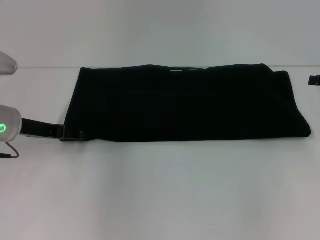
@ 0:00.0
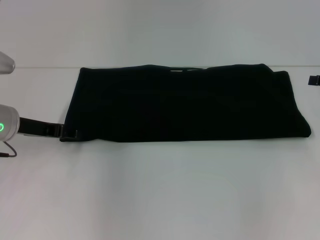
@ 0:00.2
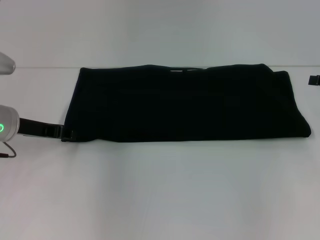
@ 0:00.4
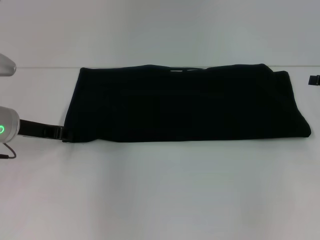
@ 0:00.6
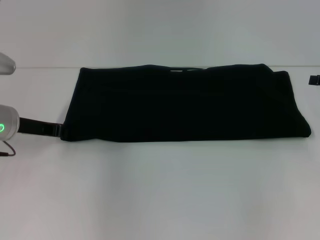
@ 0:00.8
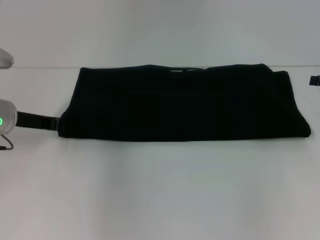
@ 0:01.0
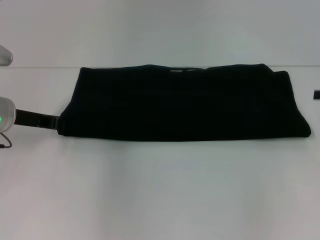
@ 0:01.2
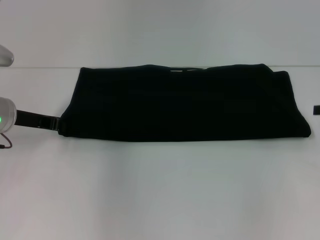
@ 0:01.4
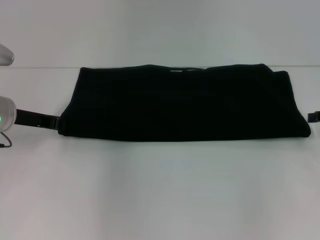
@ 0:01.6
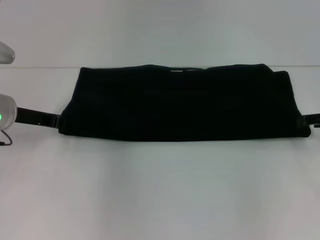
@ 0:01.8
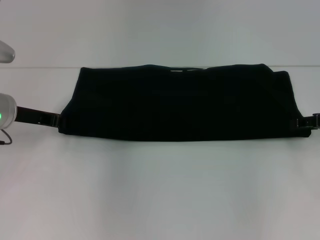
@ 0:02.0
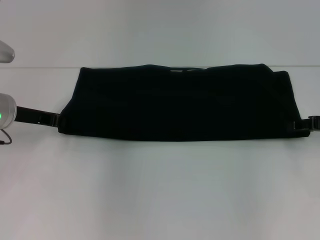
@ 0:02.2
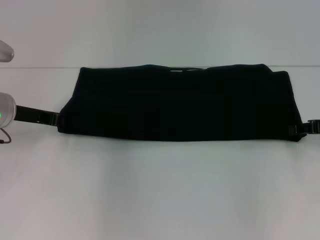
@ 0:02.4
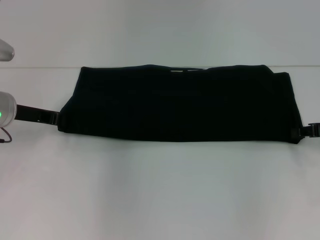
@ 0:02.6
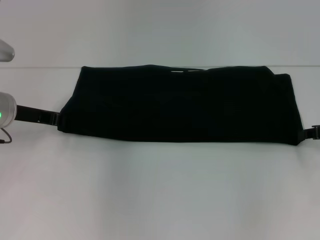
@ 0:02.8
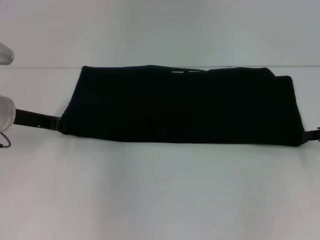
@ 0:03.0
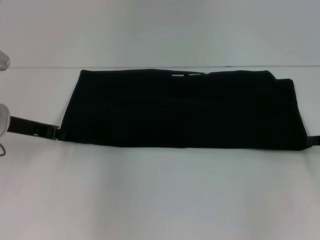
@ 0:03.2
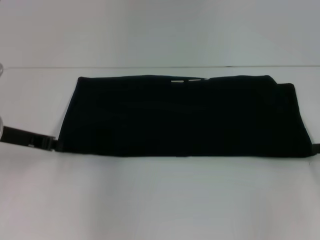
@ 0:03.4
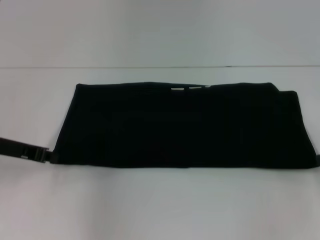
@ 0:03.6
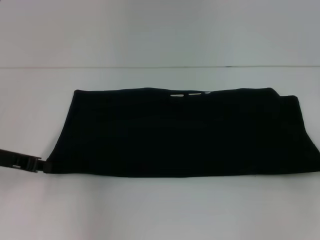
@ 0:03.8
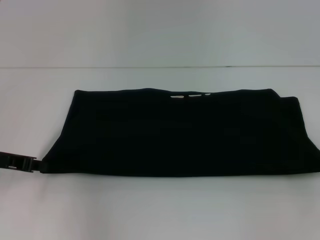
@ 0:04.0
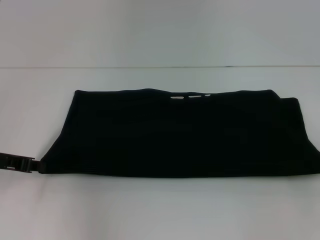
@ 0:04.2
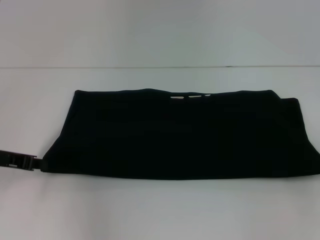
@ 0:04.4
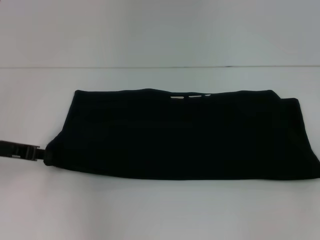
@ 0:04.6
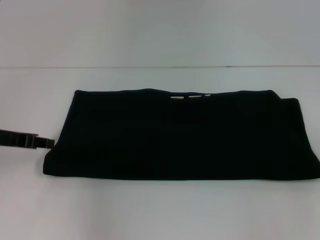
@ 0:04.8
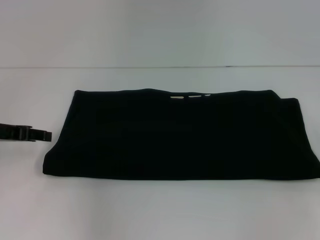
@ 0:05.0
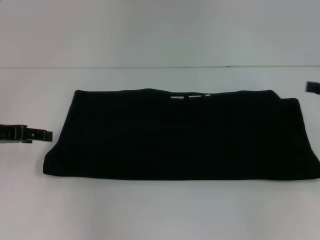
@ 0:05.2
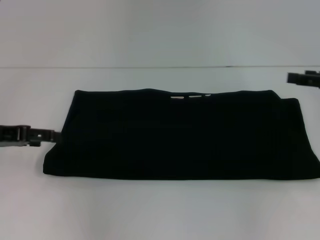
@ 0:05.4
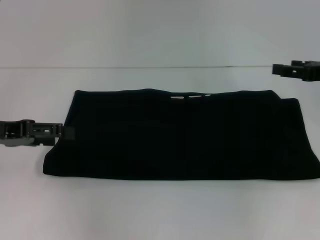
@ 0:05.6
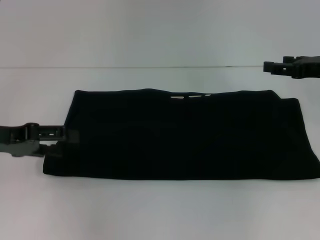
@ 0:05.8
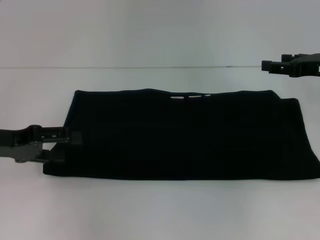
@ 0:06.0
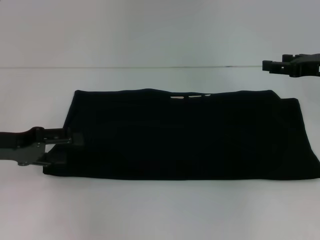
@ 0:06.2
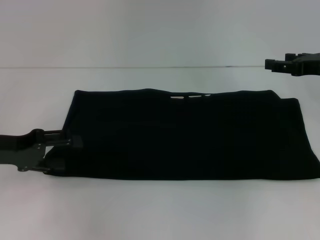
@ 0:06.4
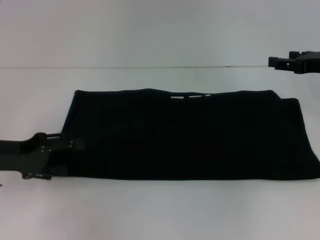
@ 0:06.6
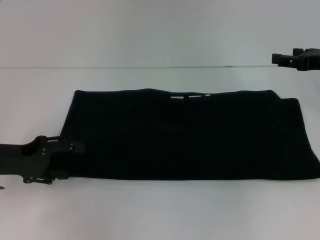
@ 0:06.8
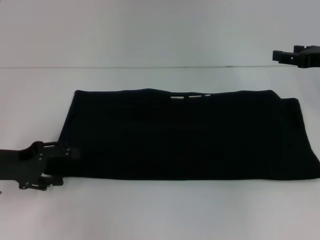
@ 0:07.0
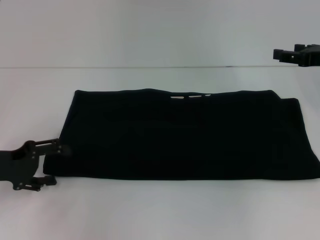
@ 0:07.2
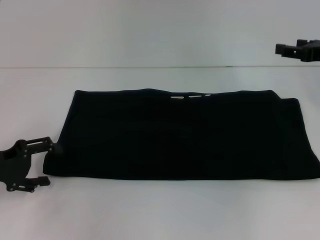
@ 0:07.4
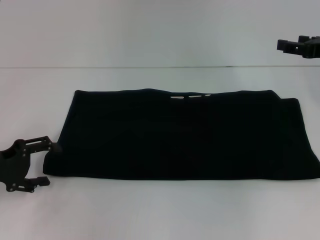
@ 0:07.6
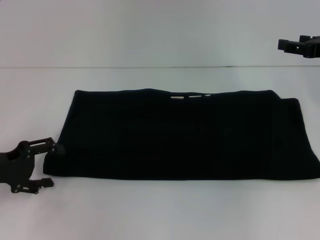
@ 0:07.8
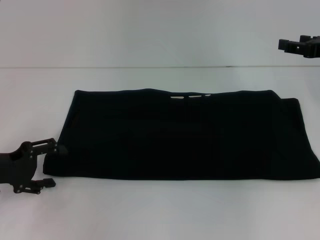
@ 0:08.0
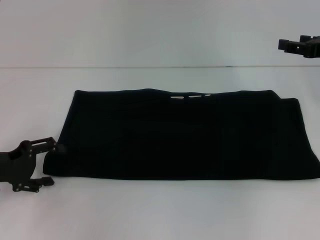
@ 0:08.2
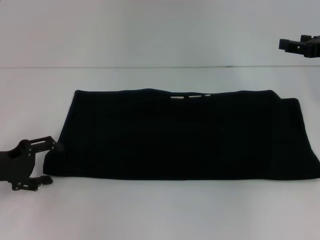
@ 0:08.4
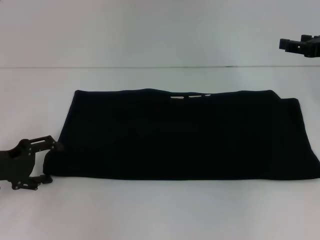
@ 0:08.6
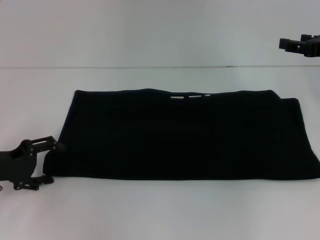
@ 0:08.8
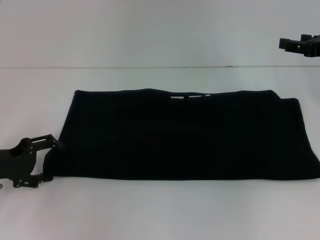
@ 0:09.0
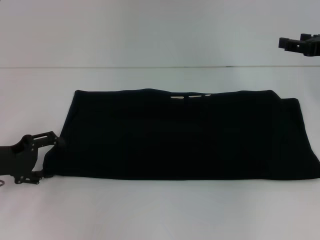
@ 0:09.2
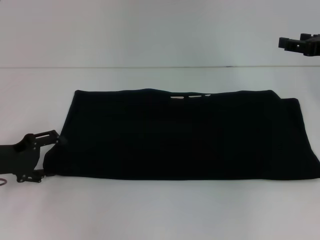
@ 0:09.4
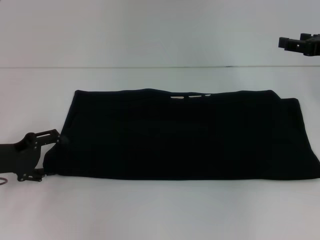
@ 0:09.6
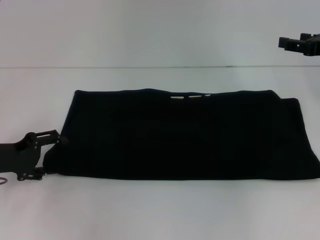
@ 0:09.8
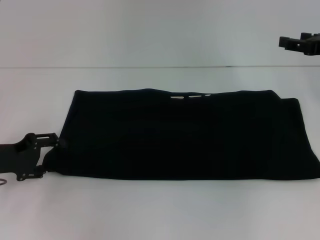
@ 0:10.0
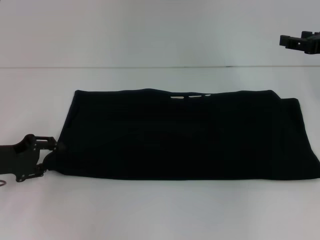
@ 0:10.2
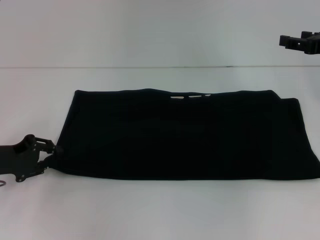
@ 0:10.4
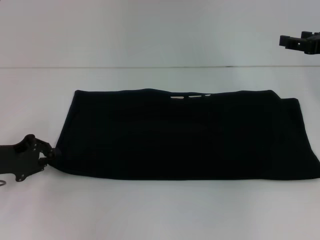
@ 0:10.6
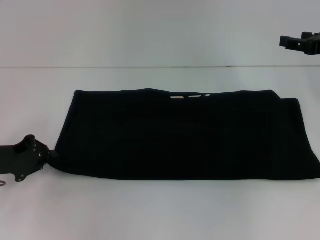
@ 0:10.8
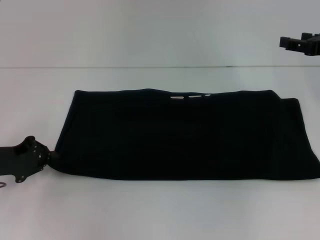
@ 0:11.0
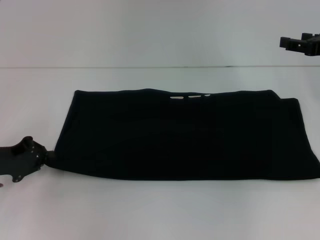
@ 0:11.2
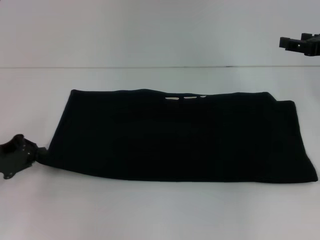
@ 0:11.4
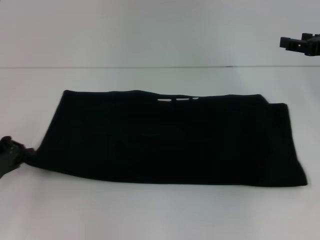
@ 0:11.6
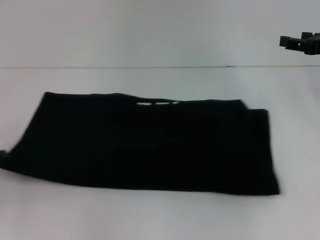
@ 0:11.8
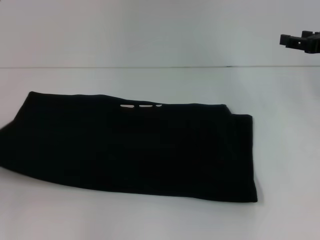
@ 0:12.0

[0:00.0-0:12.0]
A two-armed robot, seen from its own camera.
0:00.0 to 0:01.6: The left gripper closes.
0:01.6 to 0:03.0: The right gripper closes its fingers.
0:03.0 to 0:04.4: Both grippers move backward, about 5 cm.
0:04.4 to 0:06.0: The left gripper opens its fingers, while the right gripper shifts roughly 15 cm forward, to the left and upward, and opens up.
0:06.0 to 0:07.6: The left gripper shifts about 5 cm downward.
0:07.6 to 0:09.0: The grippers make only small movements.
0:09.0 to 0:10.4: The left gripper closes up.
0:10.4 to 0:12.0: The left gripper is displaced to the left by about 10 cm, and closes its fingers.

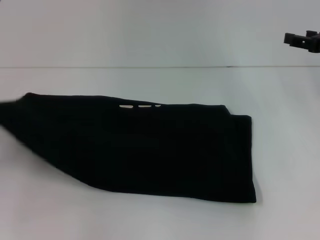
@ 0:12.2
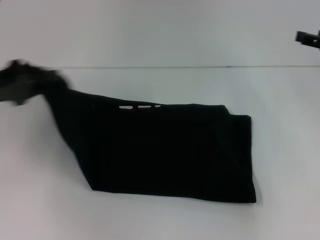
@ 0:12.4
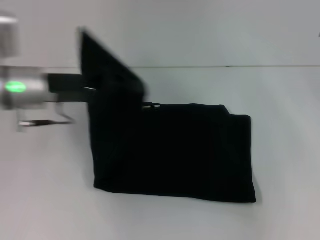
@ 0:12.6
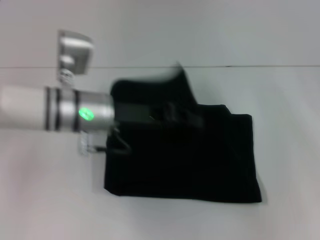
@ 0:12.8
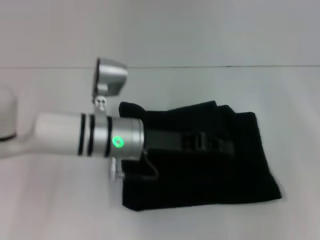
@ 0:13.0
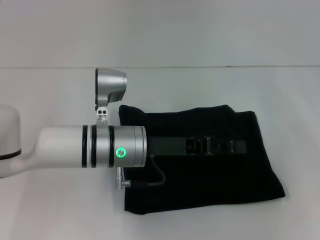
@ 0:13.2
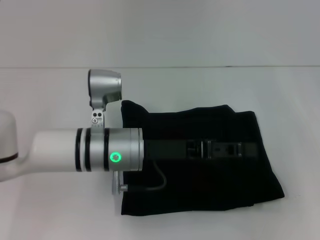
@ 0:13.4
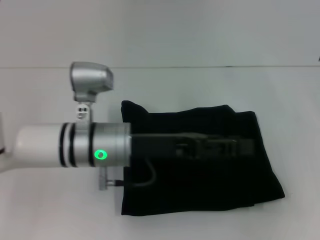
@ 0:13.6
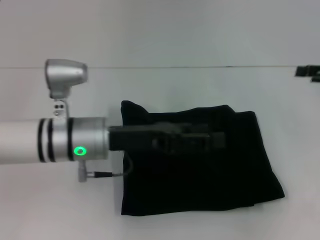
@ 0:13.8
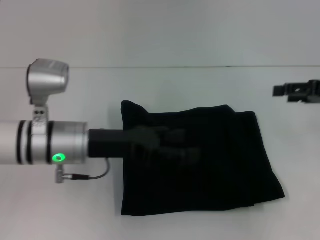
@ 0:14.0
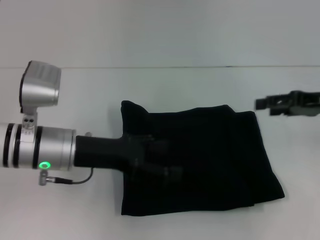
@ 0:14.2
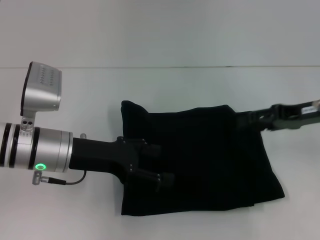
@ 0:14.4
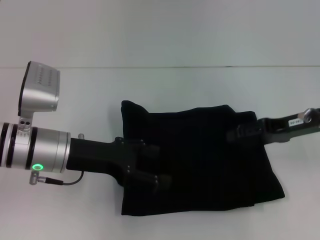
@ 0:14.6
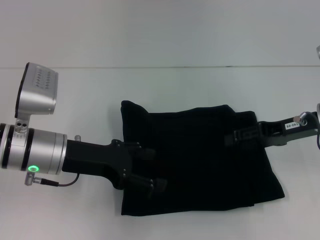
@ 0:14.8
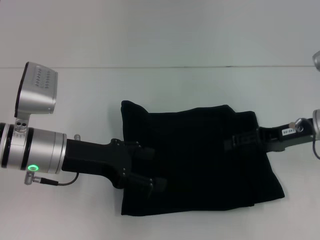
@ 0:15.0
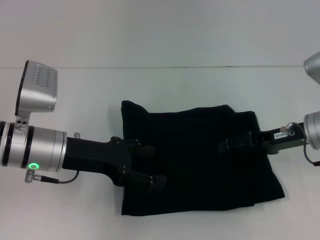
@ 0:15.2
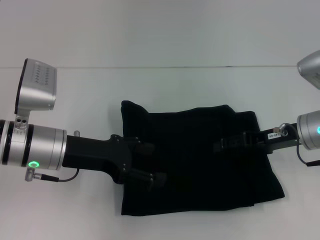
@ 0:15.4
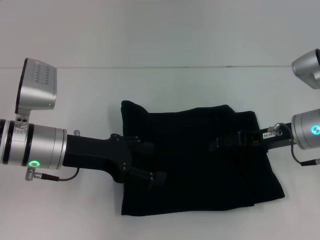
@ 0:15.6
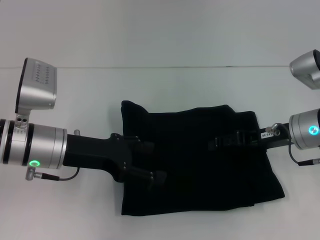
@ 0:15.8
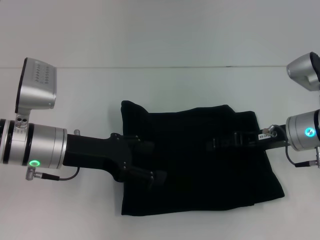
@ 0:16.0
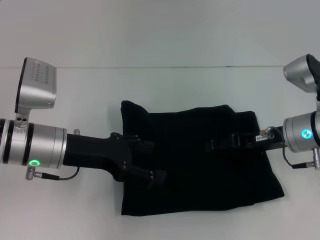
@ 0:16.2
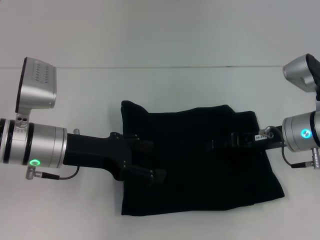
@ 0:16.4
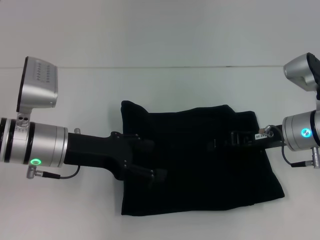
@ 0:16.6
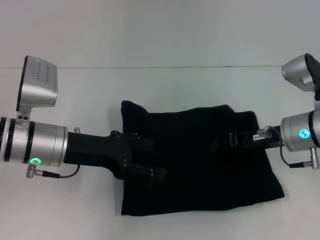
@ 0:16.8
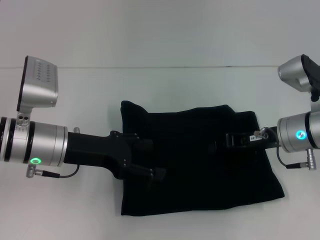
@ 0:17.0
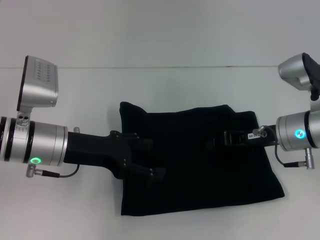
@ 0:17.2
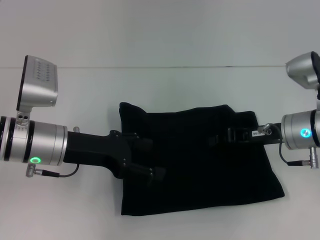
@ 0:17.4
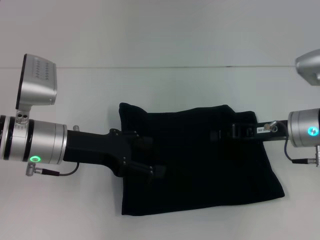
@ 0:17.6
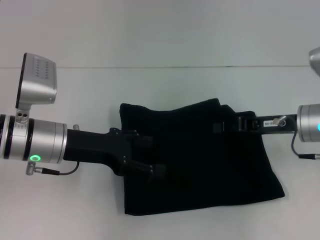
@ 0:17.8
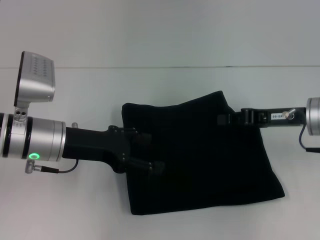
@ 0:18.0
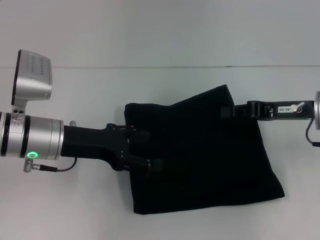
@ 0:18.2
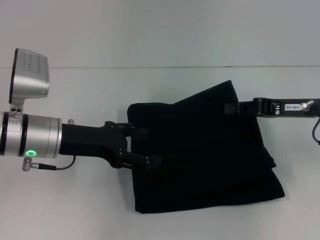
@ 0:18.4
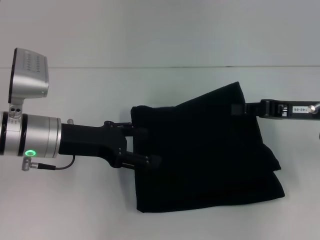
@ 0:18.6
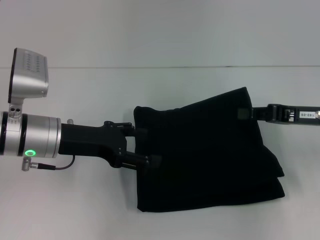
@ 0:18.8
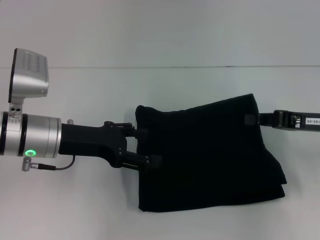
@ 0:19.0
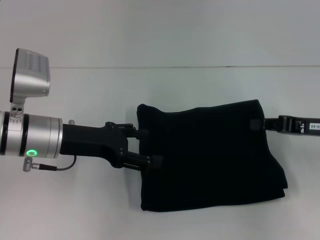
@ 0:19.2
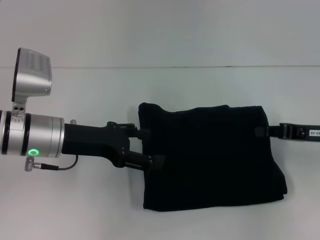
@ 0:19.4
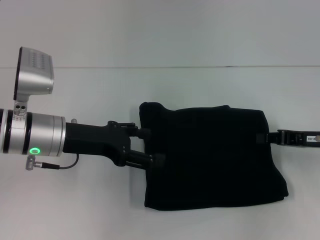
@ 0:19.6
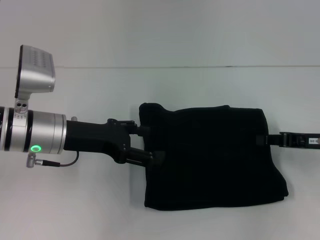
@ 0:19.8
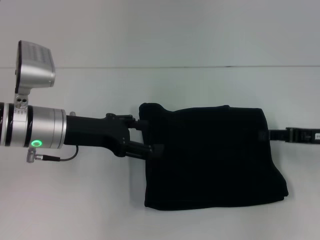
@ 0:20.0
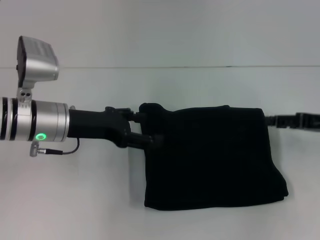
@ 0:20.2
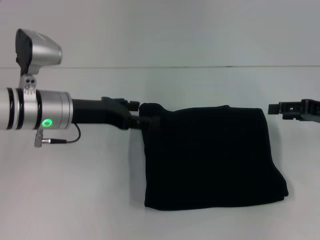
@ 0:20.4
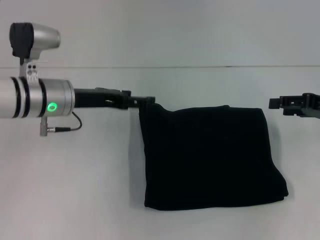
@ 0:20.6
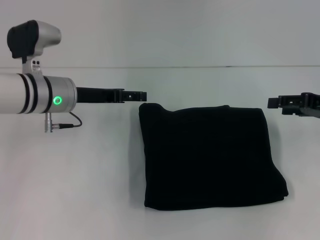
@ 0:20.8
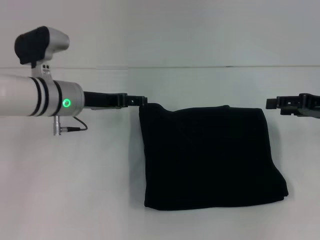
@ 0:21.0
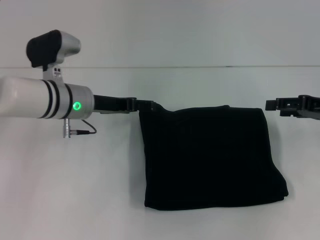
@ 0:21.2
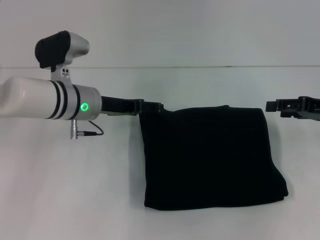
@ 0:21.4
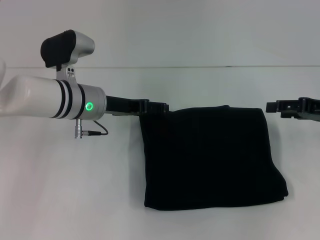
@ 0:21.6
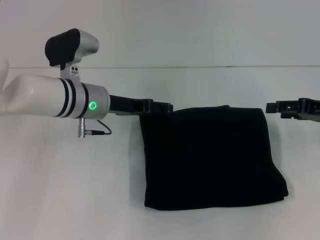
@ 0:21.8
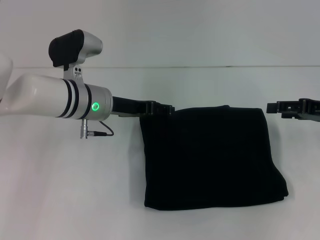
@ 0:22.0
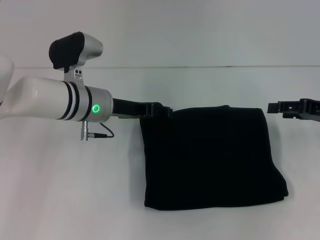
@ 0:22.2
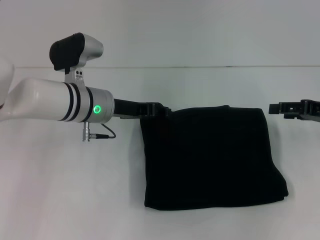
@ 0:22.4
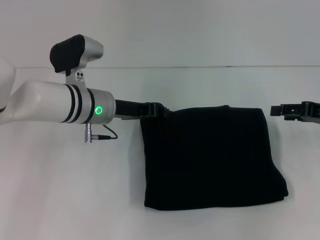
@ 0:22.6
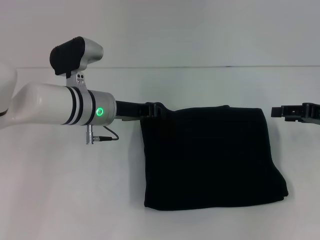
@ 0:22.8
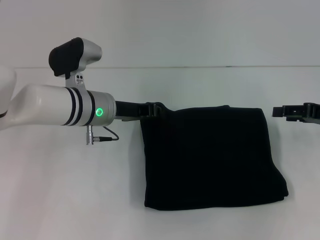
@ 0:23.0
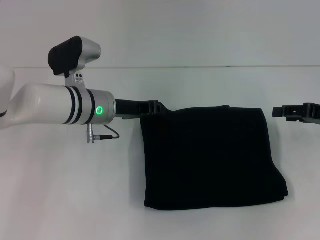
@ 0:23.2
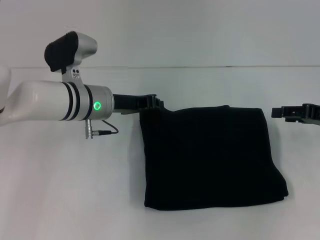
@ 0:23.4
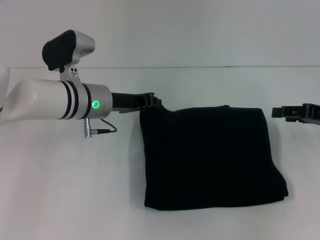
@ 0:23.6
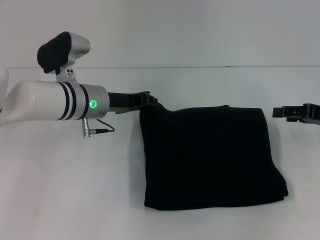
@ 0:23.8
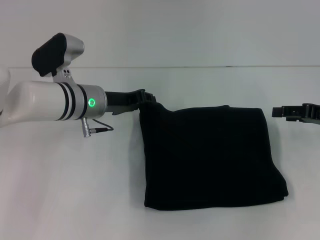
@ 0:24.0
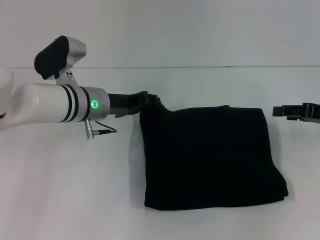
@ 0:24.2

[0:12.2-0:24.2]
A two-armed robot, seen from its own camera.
0:12.2 to 0:13.8: The left gripper shifts some 25 cm to the right, and opens its fingers.
0:13.8 to 0:15.2: The left gripper shifts roughly 5 cm to the left, and opens up, while the right gripper shifts roughly 15 cm to the left and downward.
0:15.2 to 0:16.6: The grippers make only small movements.
0:16.6 to 0:18.2: The right gripper changes place by roughly 5 cm, and closes up.
0:18.2 to 0:19.8: The right gripper goes approximately 5 cm to the right.
0:19.8 to 0:21.2: The right gripper ends up some 5 cm from where it was, and opens up, while the left gripper is displaced forward by roughly 5 cm.
0:21.2 to 0:22.6: The left gripper closes its fingers.
0:22.6 to 0:24.2: The grippers make only small movements.
